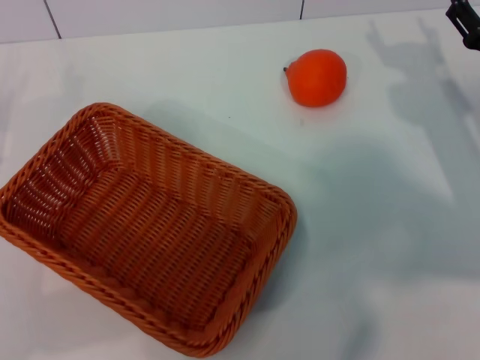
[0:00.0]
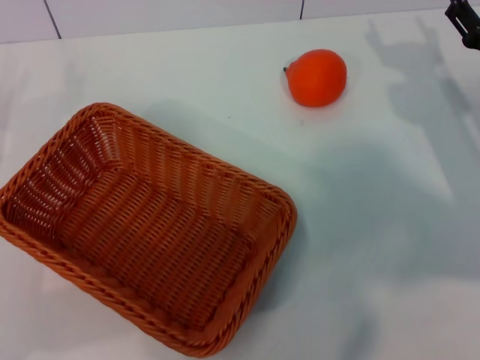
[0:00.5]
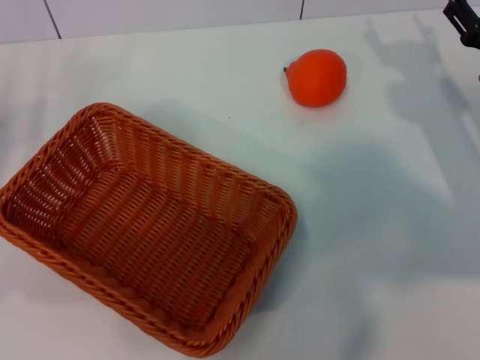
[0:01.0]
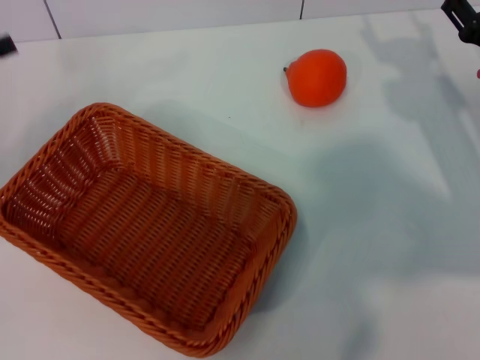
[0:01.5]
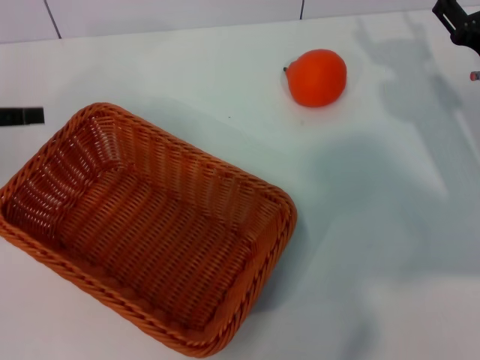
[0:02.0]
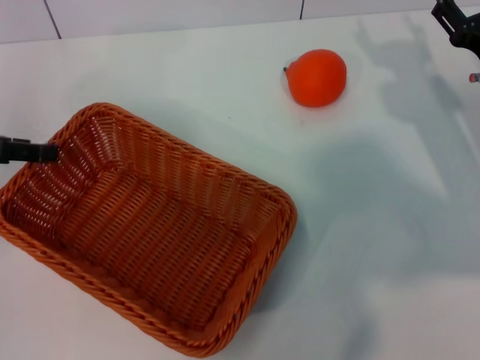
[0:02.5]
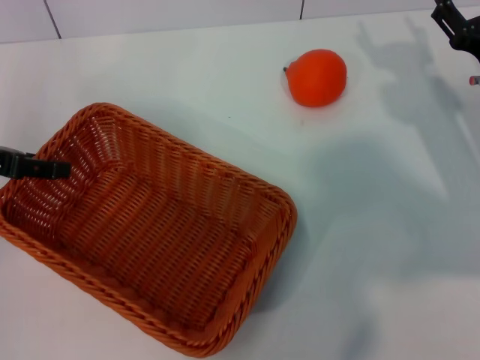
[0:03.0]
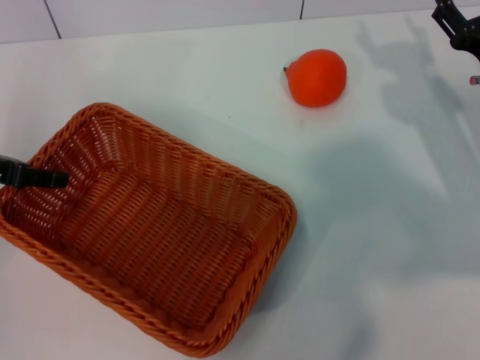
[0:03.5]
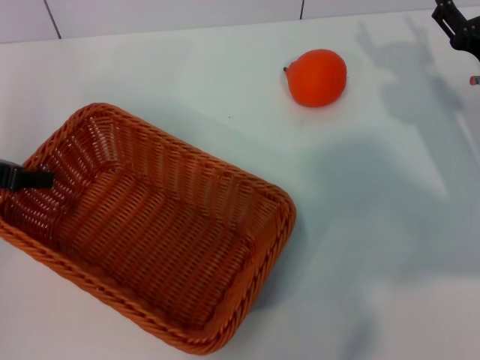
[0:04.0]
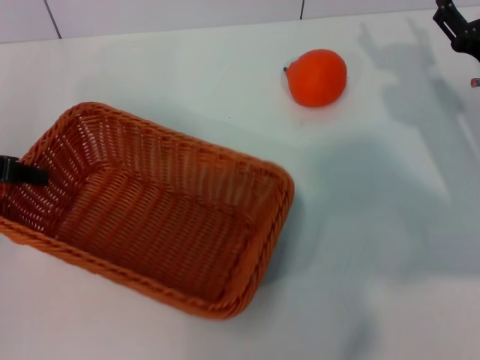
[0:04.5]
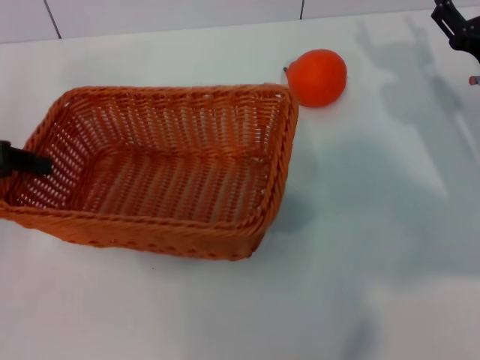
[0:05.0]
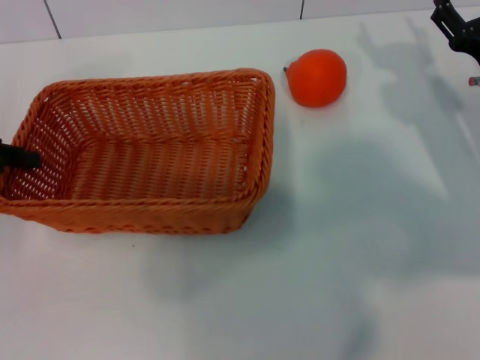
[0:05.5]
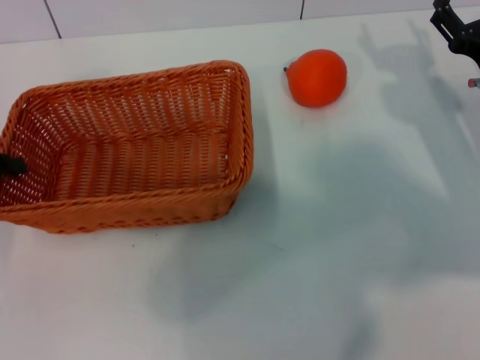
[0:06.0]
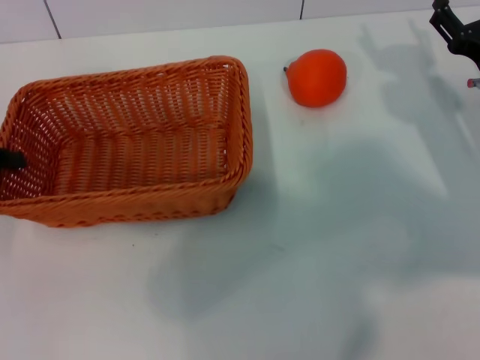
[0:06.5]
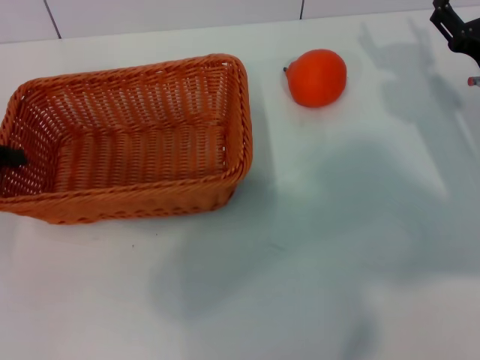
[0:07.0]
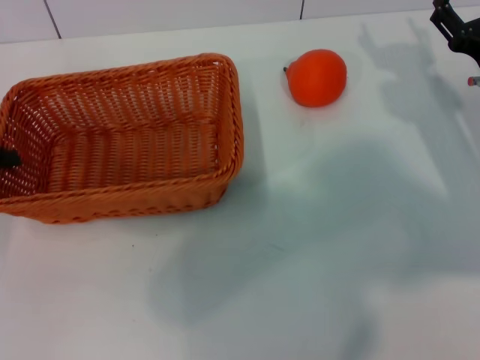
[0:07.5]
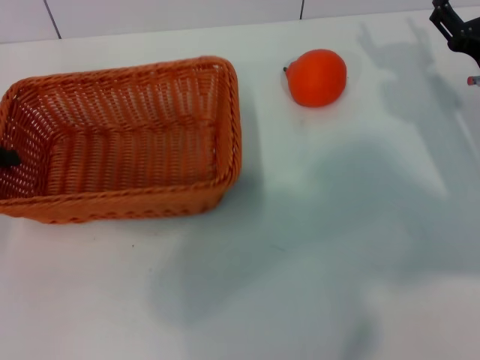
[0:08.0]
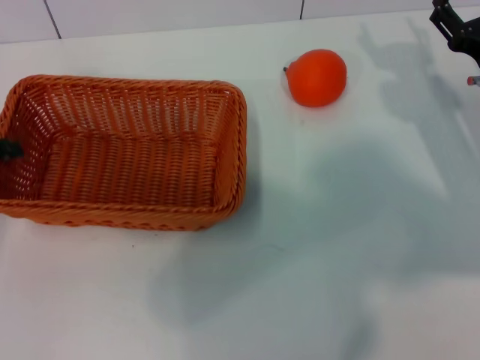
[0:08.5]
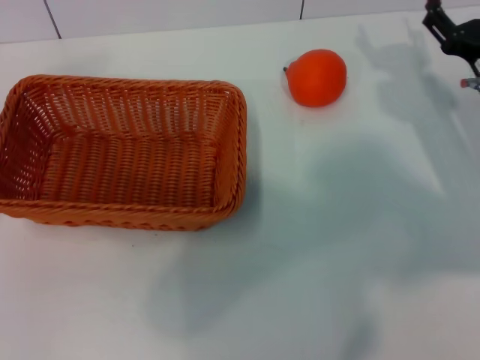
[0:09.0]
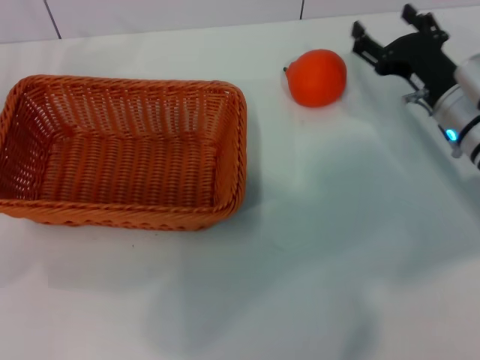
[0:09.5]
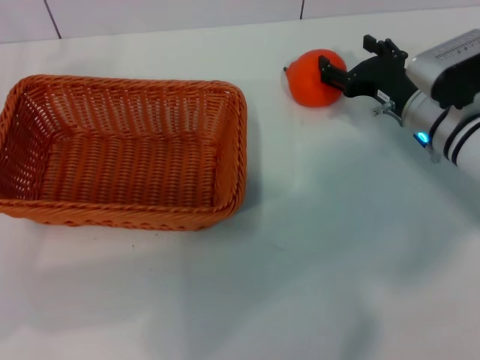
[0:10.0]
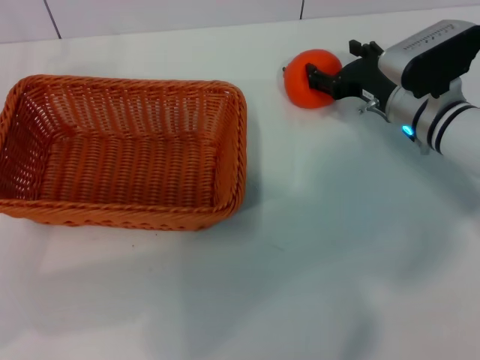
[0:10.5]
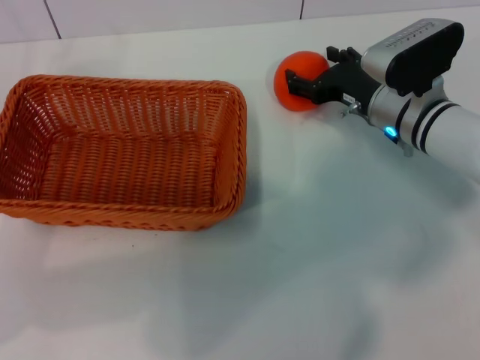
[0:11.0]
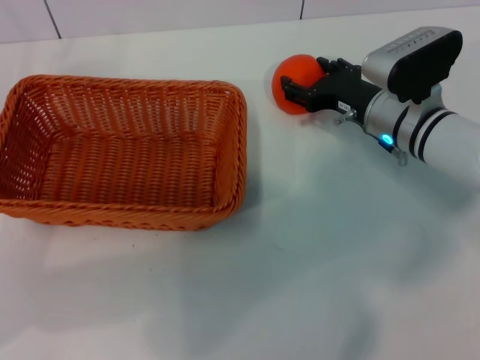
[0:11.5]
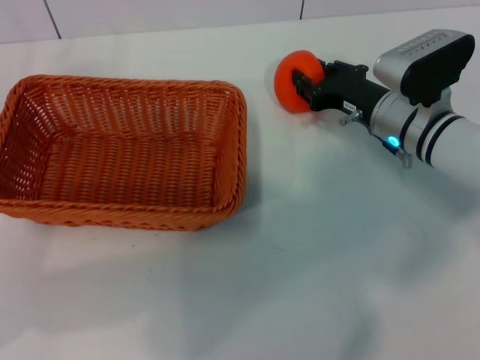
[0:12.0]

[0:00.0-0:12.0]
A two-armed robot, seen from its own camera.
Task of the whole recording: the left gripper pick up the yellow basket and place it horizontally in the middle of the table, the right gripper pick up the orange and place it into the yellow basket.
Step, 0:00.0 to 0:04.5: Pick up the light basket with the left gripper.
Step, 0:05.0 to 0:09.0: Place the light basket in the center of view with the left gripper.
0:00.0 to 0:02.0: The left gripper travels upward and forward by roughly 15 cm.
0:02.0 to 0:04.0: The left gripper closes.
0:04.0 to 0:06.0: The left gripper shifts by about 5 cm.
0:06.0 to 0:08.0: Both grippers stay put.
0:08.0 to 0:10.0: The left gripper opens up; the right gripper heads to the left, covering some 5 cm.
0:10.0 to 0:12.0: The right gripper closes its fingers.

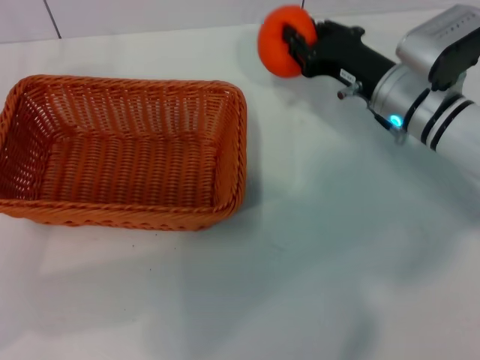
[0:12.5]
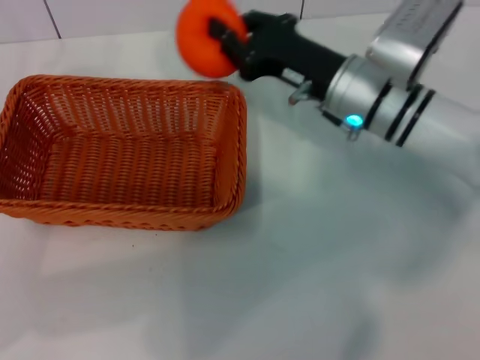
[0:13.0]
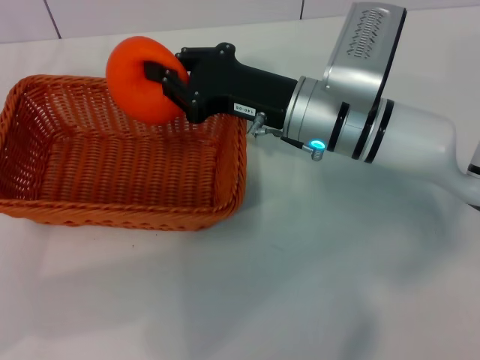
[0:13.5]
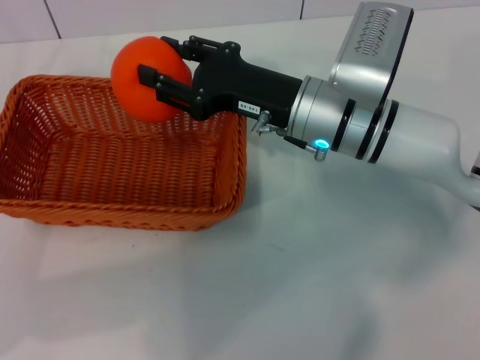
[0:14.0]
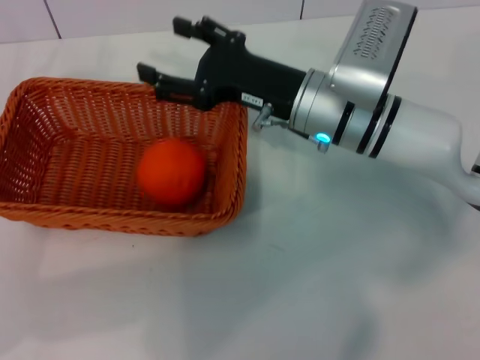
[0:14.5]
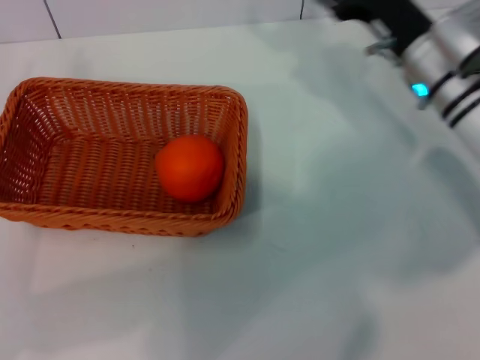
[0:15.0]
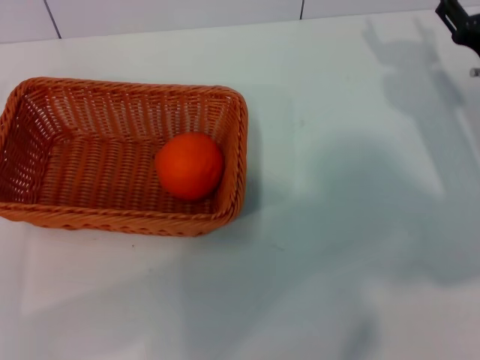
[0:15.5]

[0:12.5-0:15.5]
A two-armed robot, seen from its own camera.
Task of the whole recording: the left gripper pick up the yellow basket and place it horizontally in the middle of the table, the right gripper pick up the orange and place it into the yellow basket.
Step, 0:13.0 to 0:14.5: Place the orange into the light basket with the right gripper.
0:12.5 to 0:14.0: The right gripper goes roughly 10 cm to the left.
0:14.0 to 0:15.5: The right gripper moves to the right, about 20 cm, and opens up.
